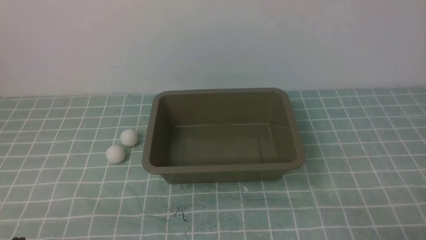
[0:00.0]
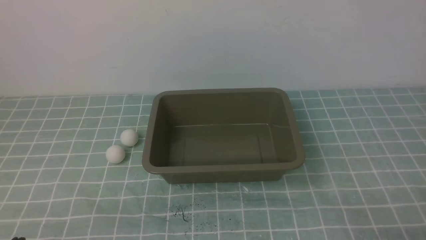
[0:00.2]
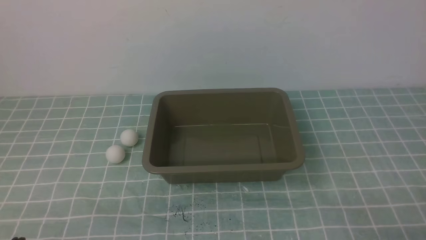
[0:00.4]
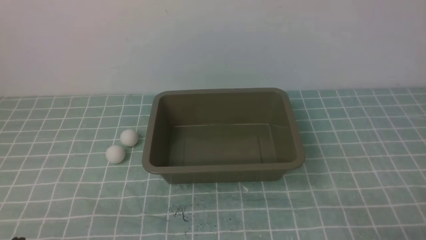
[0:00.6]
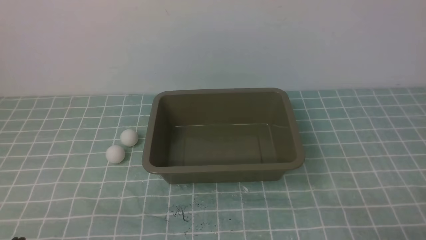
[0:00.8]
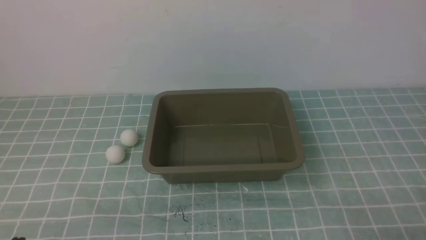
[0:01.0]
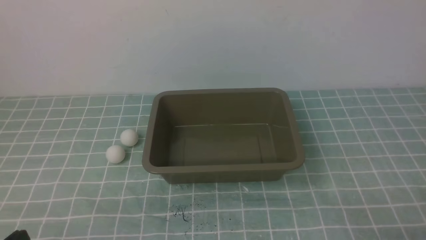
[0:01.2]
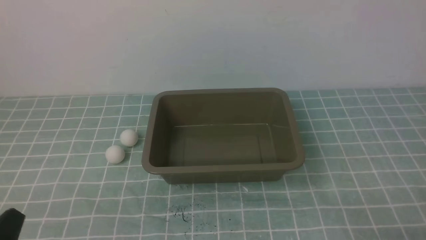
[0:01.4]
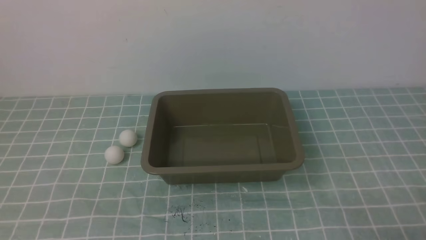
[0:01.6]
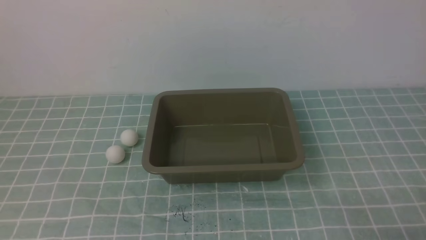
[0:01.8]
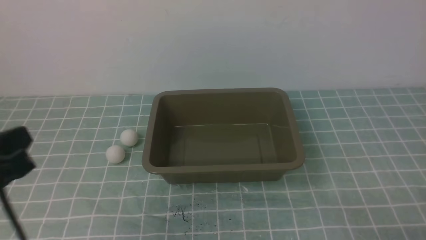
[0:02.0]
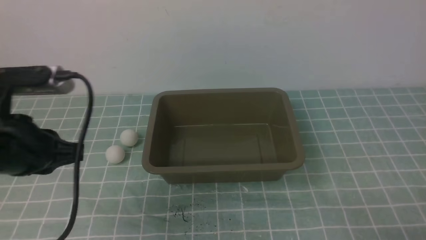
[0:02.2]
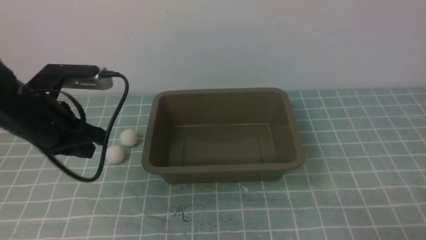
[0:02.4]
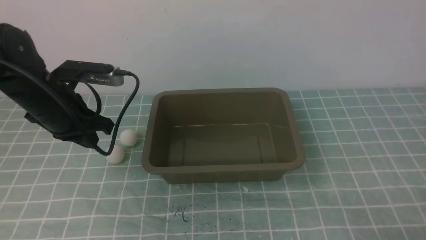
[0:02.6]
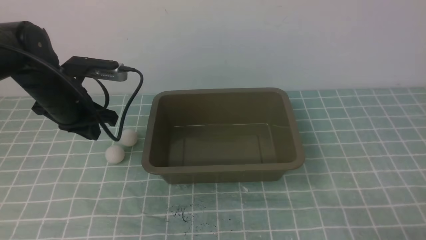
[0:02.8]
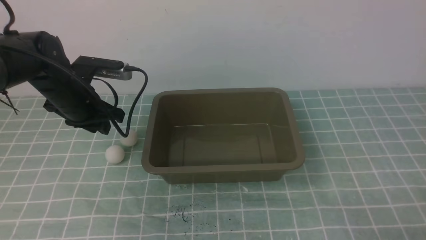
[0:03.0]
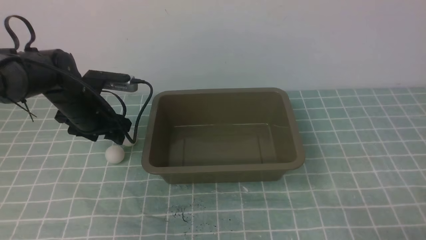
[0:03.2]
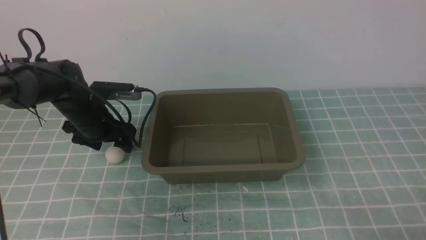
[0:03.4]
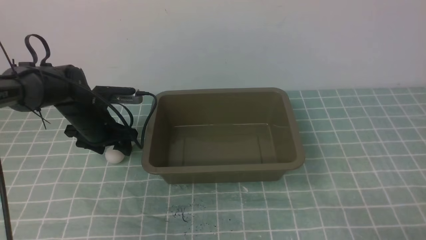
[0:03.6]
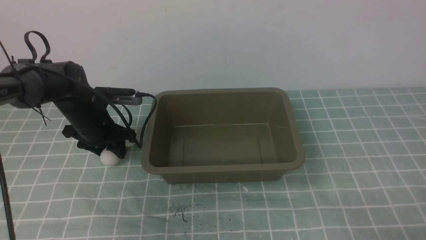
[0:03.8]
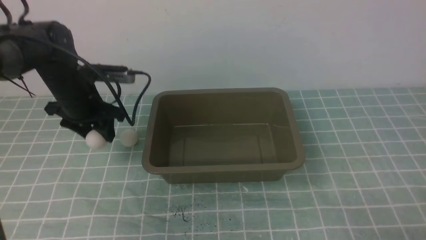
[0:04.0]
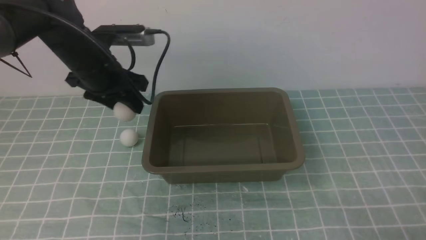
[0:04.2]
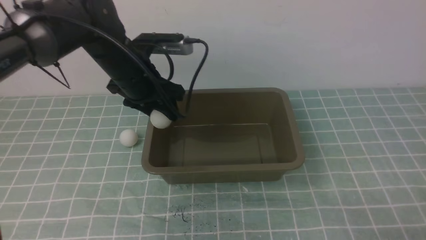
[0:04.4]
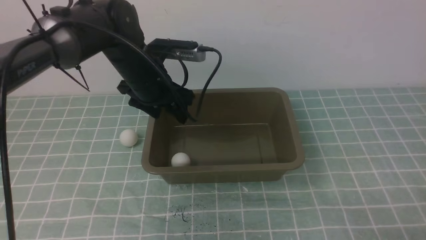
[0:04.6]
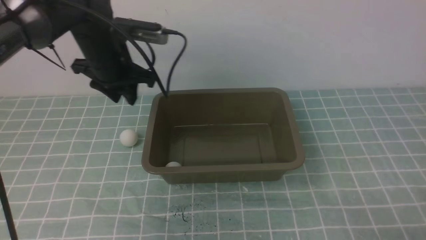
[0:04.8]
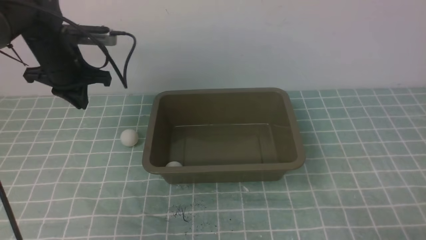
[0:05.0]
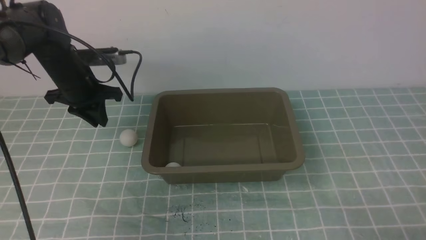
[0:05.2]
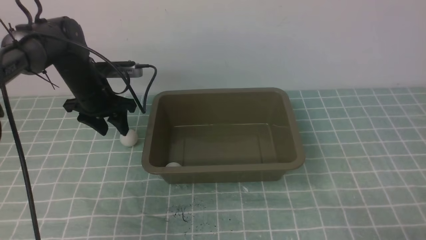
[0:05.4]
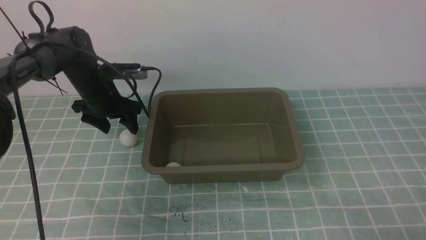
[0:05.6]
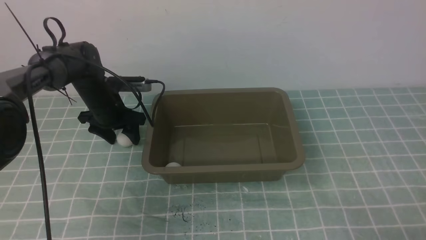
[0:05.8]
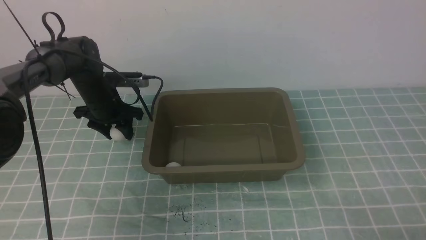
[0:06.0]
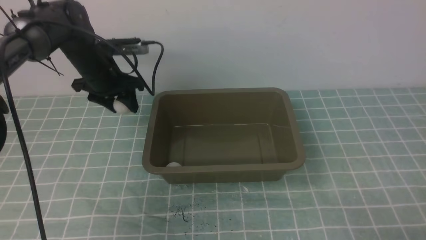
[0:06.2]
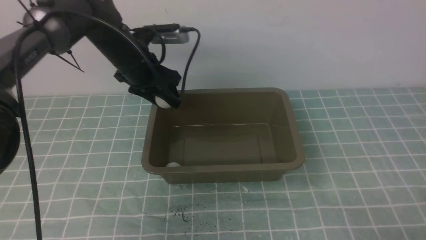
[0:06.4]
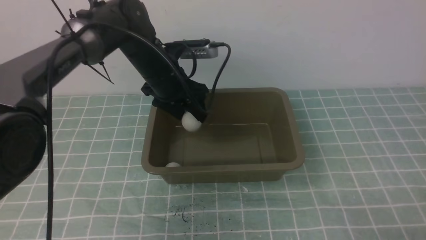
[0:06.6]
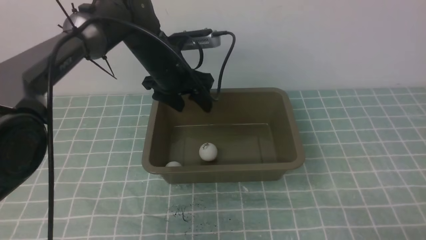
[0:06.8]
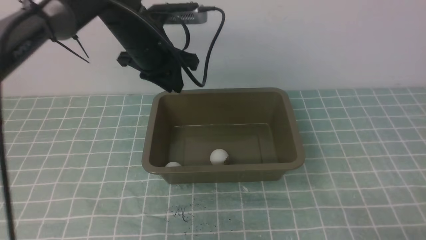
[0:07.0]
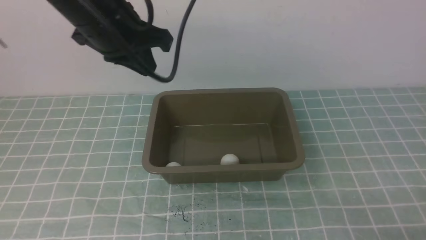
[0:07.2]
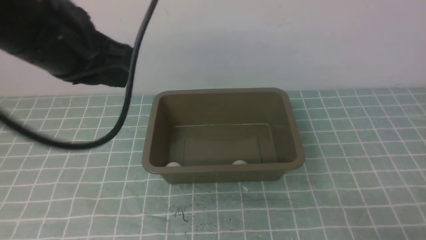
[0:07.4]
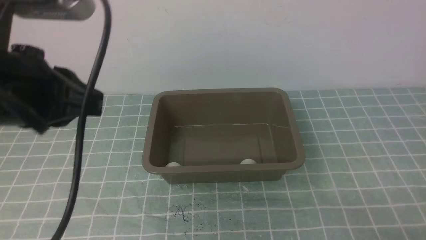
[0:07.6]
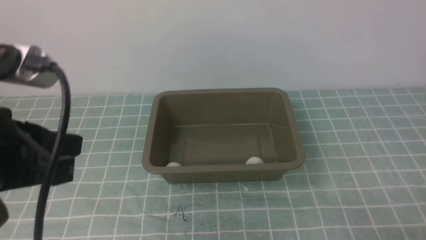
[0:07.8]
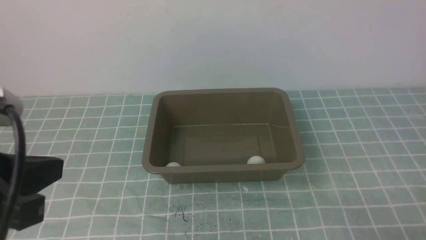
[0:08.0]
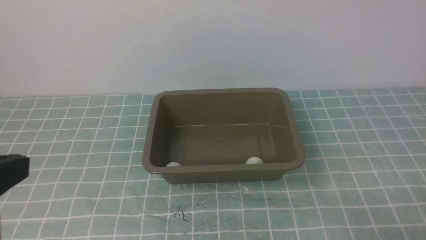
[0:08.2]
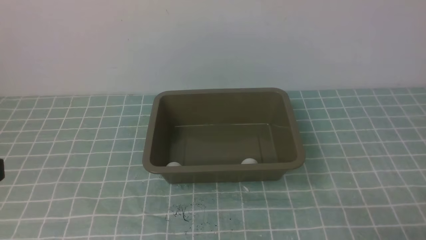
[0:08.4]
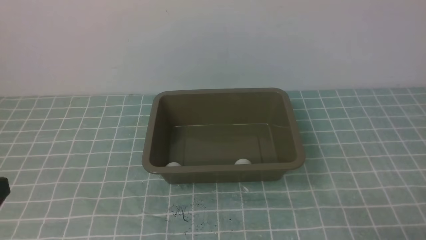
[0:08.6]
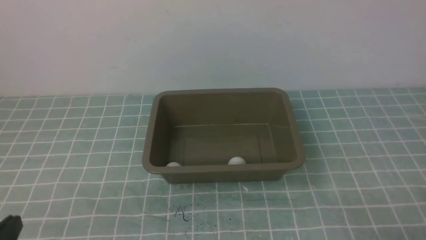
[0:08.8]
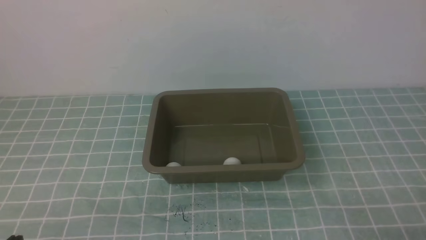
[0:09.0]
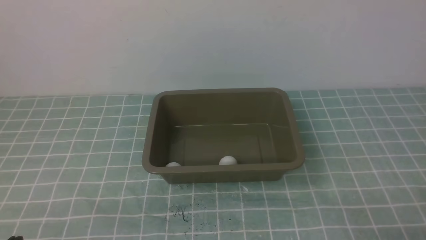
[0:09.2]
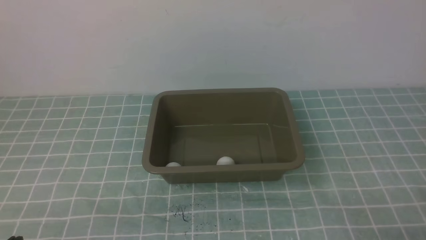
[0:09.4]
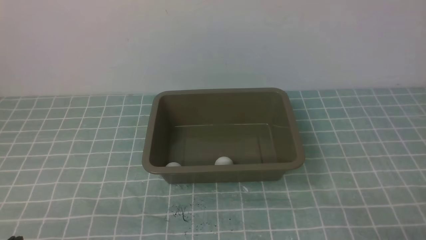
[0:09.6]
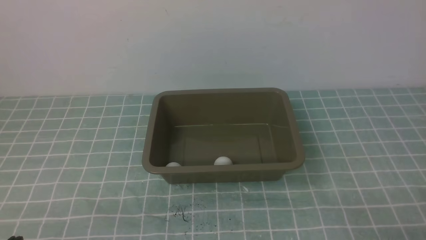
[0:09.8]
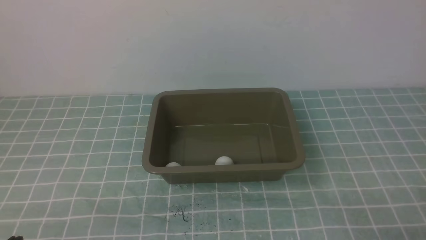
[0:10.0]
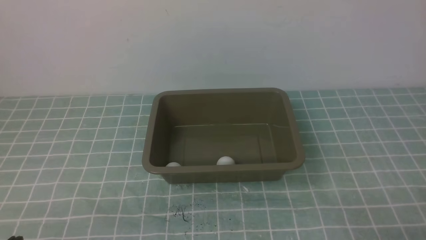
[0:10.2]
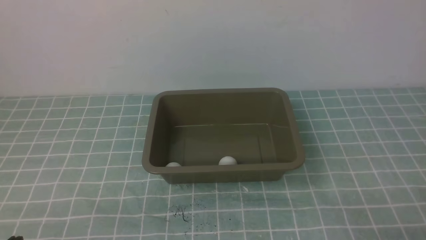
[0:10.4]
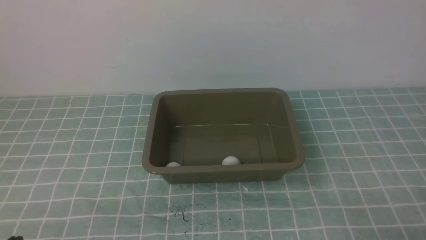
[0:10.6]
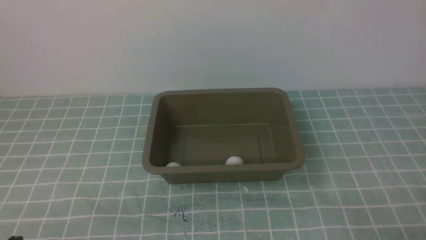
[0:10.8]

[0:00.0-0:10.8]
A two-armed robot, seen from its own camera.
Step, 0:00.0 to 0:03.8: use the left arm to clamp the table tennis ball closest to it.
Step, 0:04.2 to 0:04.4: use the left arm to put the table tennis ball into the box.
Step, 0:04.8 to 0:06.0: use the left arm to clamp the table tennis ball closest to it.
Step, 0:06.4 to 0:07.2: use the left arm to put the table tennis ball into the box.
0:01.6 to 0:03.0: The left gripper shifts approximately 30 cm forward.
0:03.0 to 0:04.6: The left gripper heads to the right, covering roughly 10 cm, travels downward and back again, some 5 cm each way, and opens.
0:04.6 to 0:06.2: The left gripper shifts some 15 cm to the left, downward and forward, and closes, then opens again.
0:06.2 to 0:07.8: The left gripper is displaced backward and upward by some 35 cm, and closes its fingers.
0:07.8 to 0:09.2: The left gripper travels downward and backward by some 25 cm.
0:09.2 to 0:10.8: Neither gripper changes place.

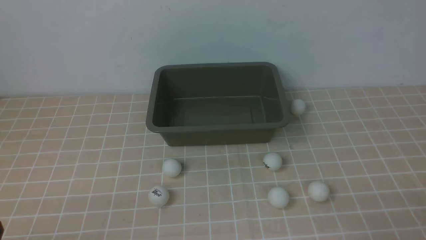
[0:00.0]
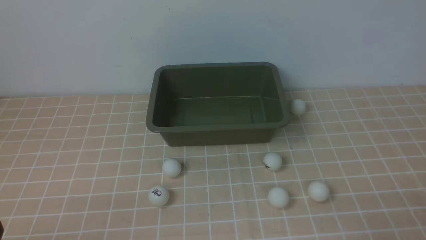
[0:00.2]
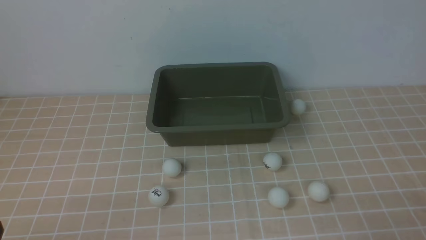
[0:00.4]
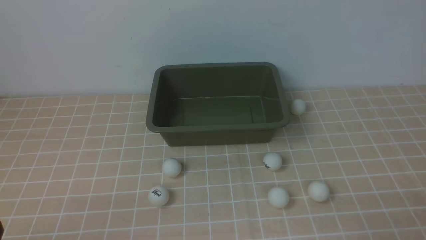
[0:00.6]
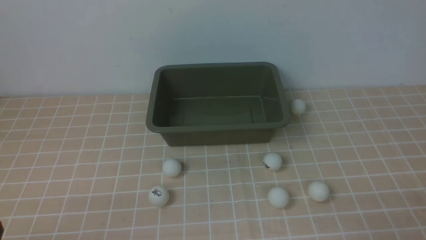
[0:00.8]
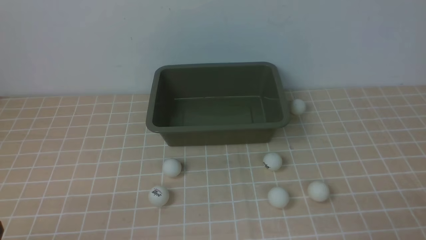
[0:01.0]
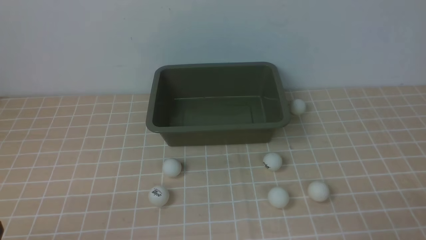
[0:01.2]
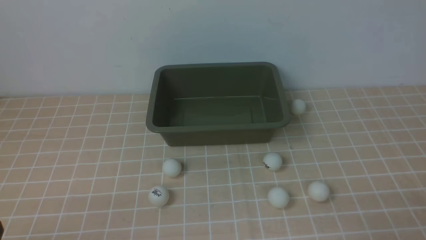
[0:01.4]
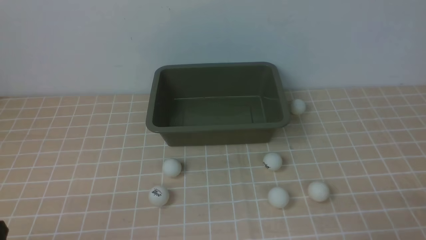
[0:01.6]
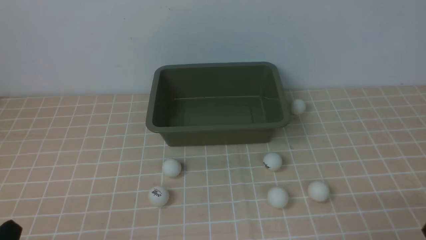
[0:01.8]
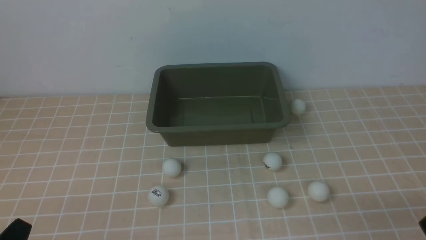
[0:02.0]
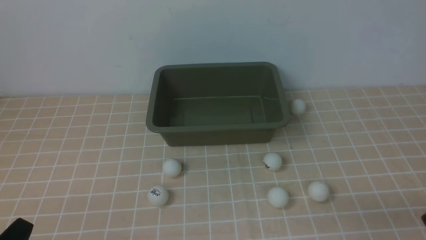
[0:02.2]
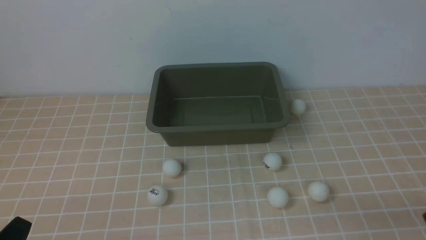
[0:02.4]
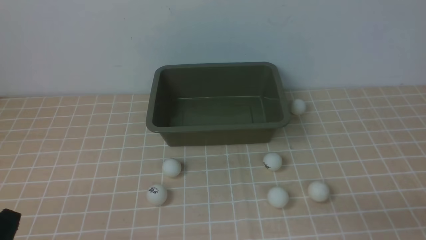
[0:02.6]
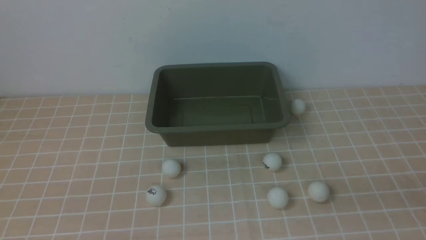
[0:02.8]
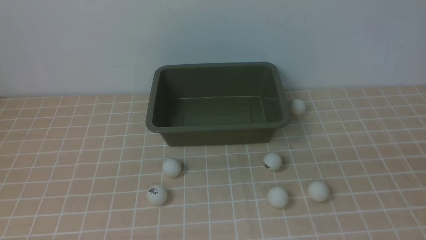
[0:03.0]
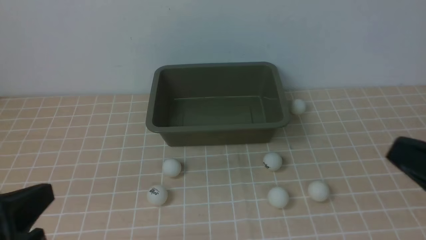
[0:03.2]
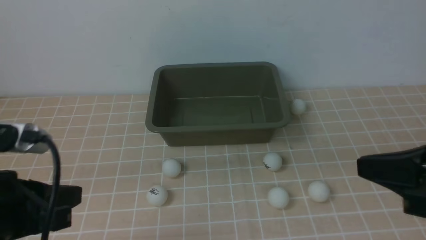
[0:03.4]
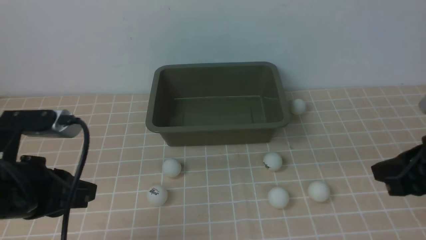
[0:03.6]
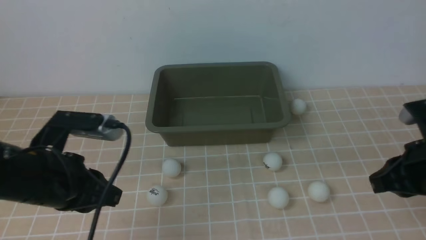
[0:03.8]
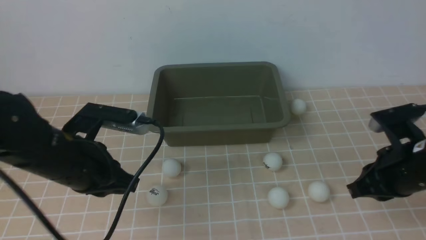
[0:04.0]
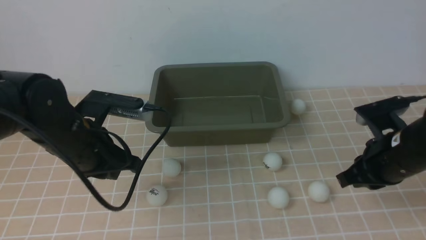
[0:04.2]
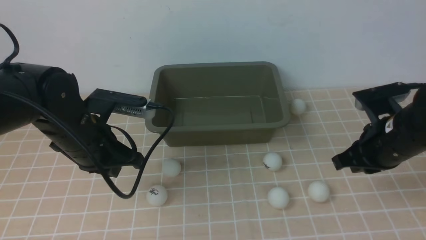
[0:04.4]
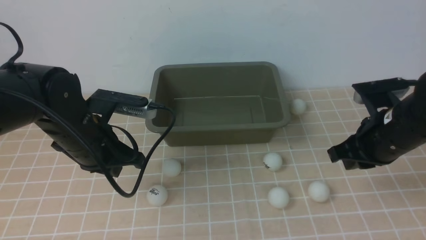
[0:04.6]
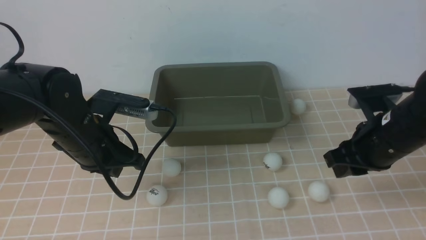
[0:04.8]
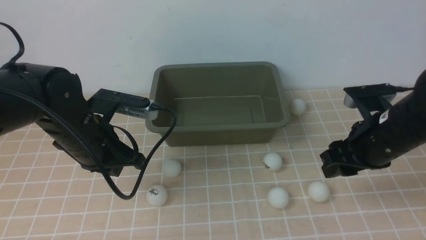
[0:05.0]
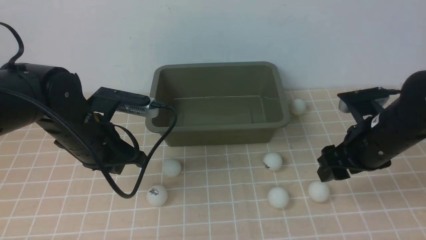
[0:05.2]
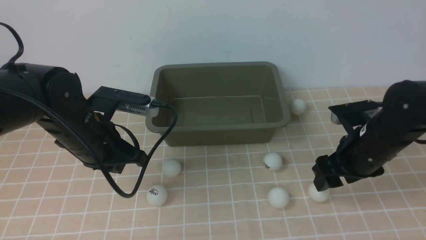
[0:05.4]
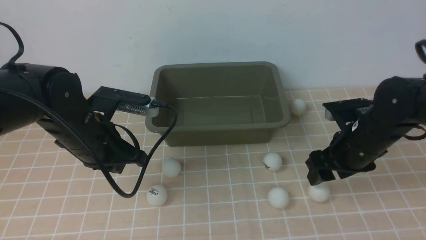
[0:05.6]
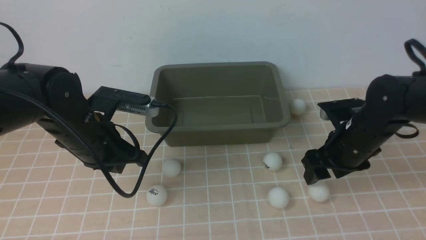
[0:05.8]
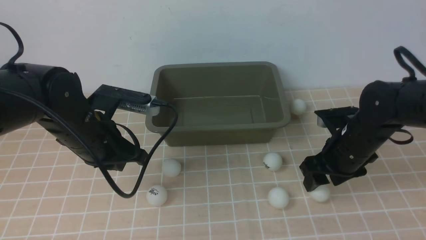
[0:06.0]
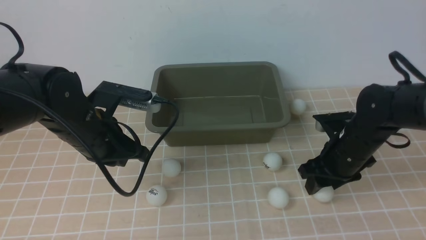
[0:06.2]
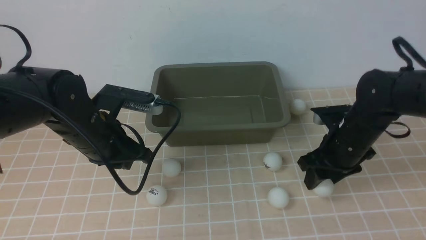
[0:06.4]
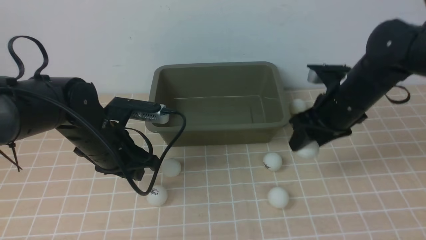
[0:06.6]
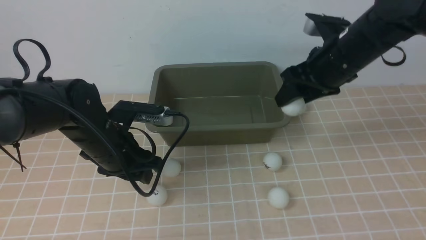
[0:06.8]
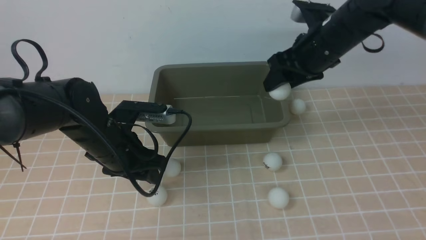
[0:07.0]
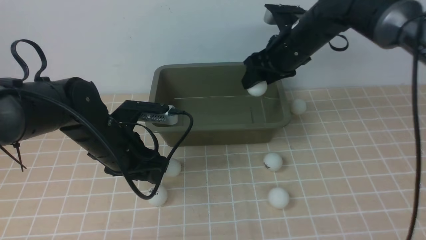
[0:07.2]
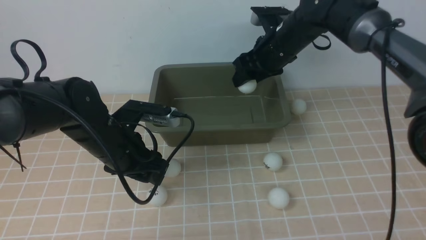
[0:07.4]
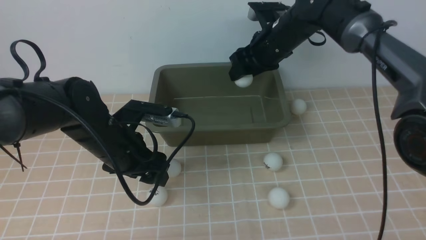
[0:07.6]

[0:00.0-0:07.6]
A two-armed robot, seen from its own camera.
Step, 0:00.0 to 0:06.4: use the right arm to clamp the table tennis ball closest to it.
0:03.0 to 0:04.6: Both grippers travel together forward, about 25 cm.
0:04.6 to 0:06.0: The right gripper shifts some 5 cm downward, and opens up.
0:06.0 to 0:07.6: The left gripper opens its fingers, while the right gripper shifts about 20 cm forward, to the left and upward.
